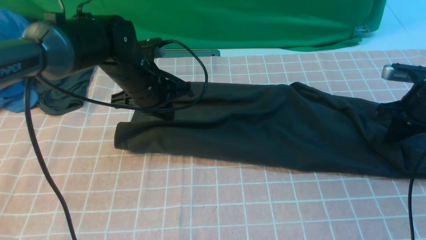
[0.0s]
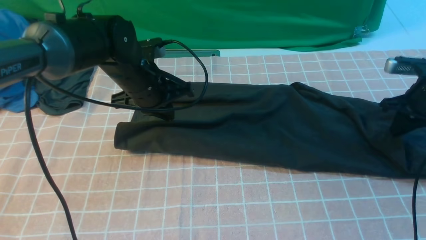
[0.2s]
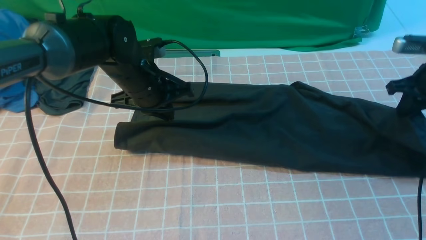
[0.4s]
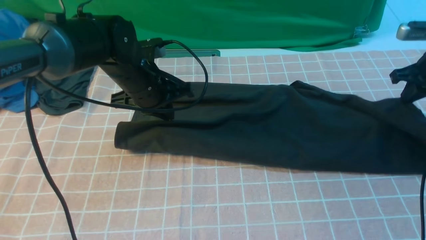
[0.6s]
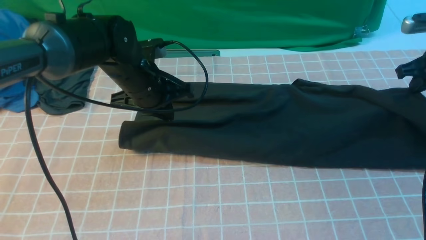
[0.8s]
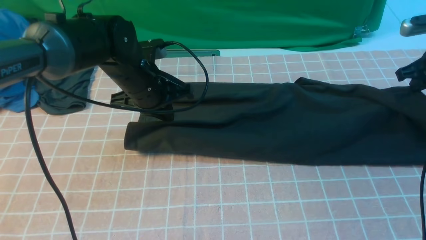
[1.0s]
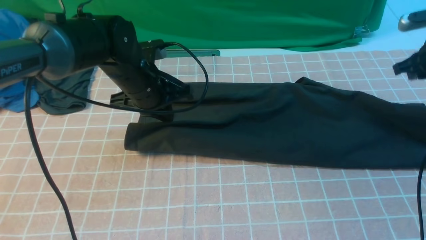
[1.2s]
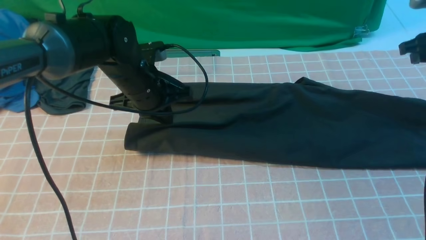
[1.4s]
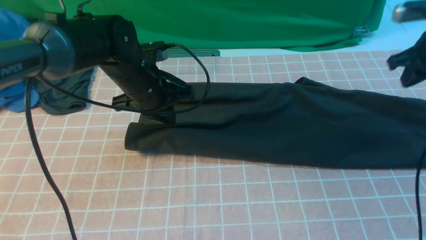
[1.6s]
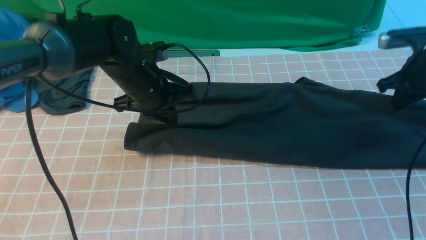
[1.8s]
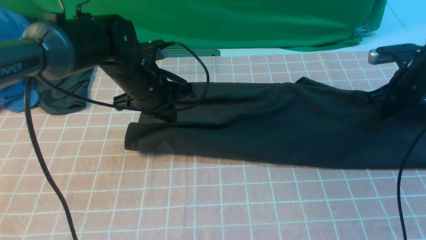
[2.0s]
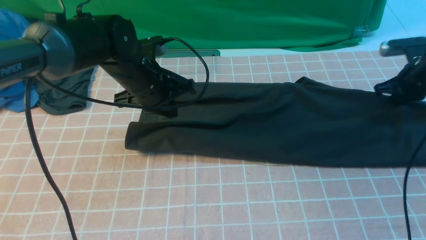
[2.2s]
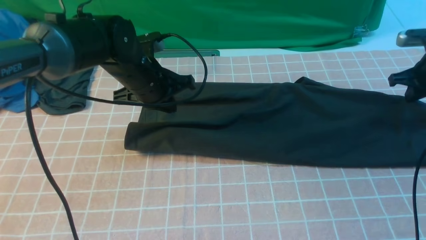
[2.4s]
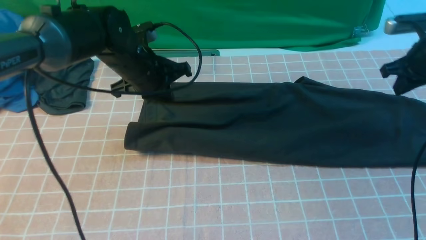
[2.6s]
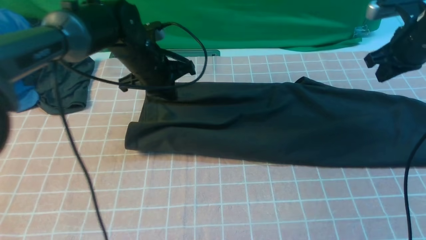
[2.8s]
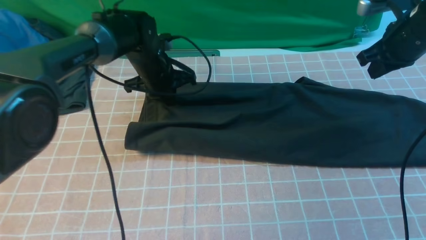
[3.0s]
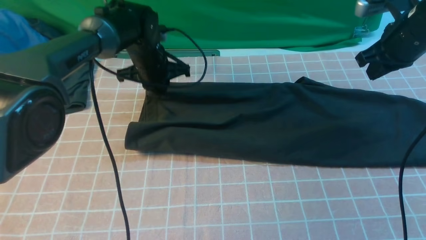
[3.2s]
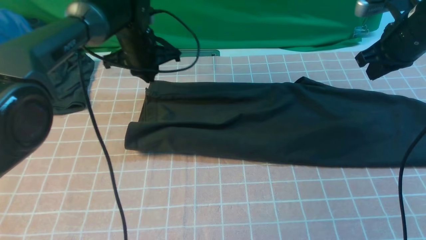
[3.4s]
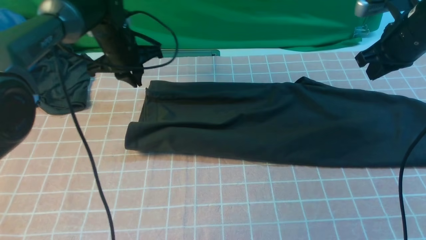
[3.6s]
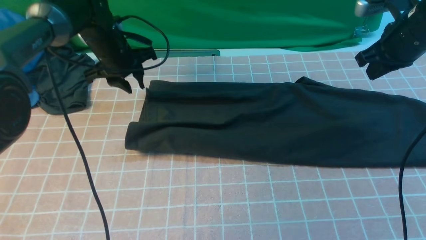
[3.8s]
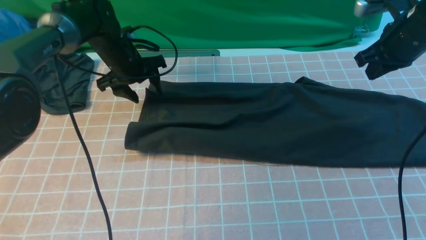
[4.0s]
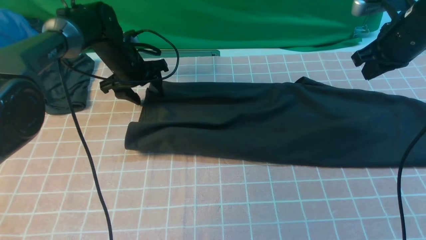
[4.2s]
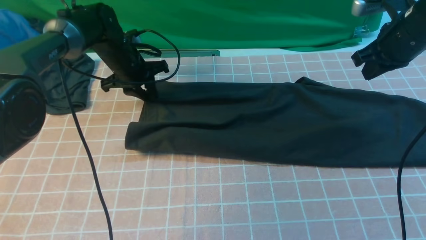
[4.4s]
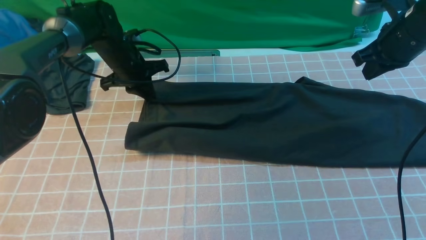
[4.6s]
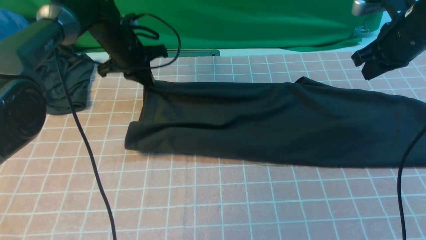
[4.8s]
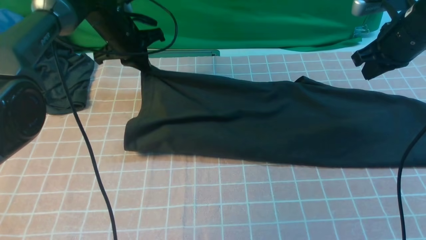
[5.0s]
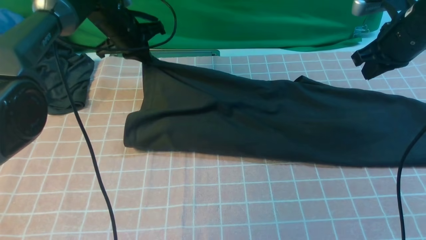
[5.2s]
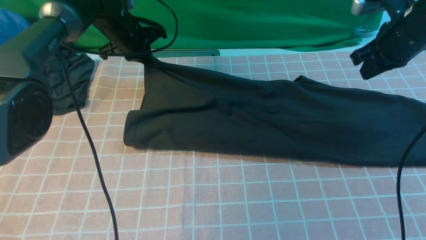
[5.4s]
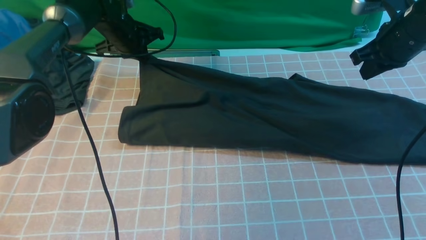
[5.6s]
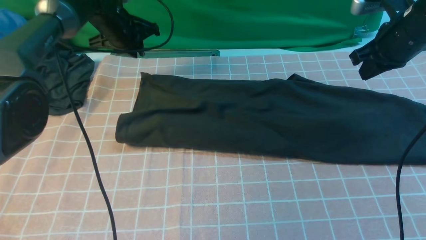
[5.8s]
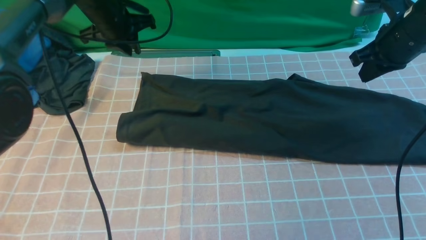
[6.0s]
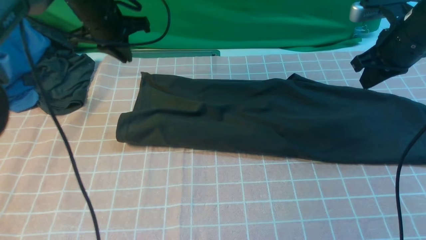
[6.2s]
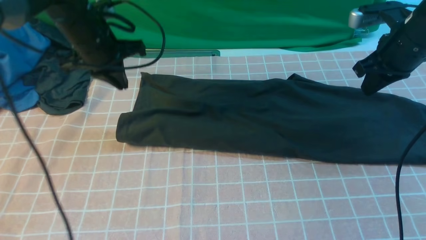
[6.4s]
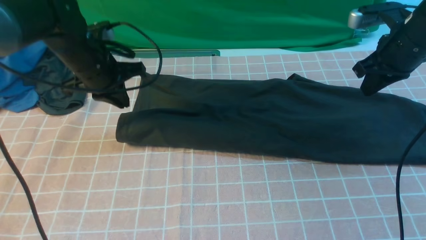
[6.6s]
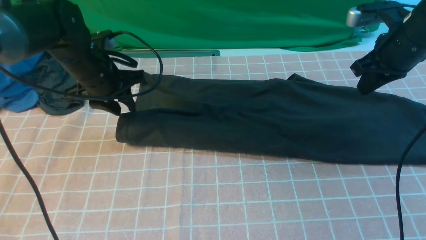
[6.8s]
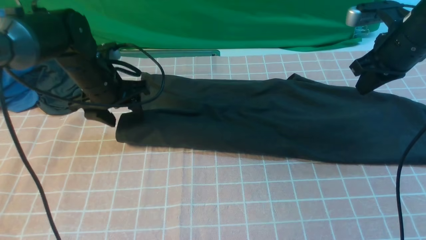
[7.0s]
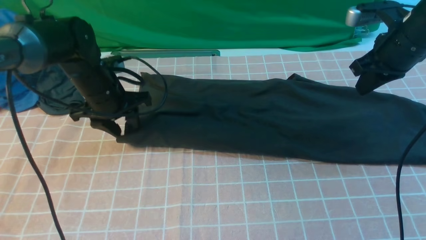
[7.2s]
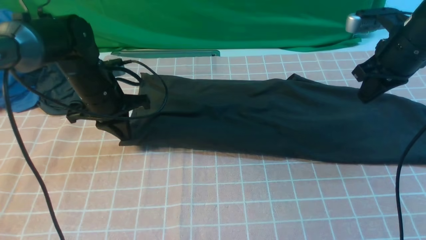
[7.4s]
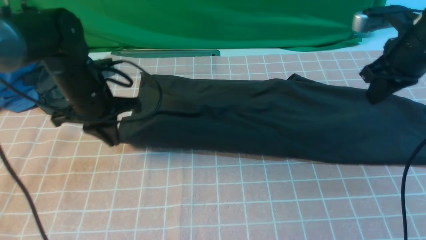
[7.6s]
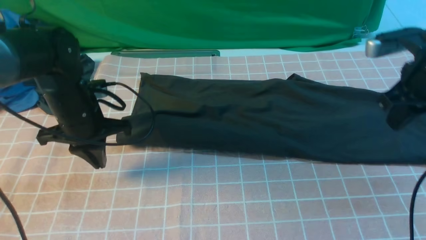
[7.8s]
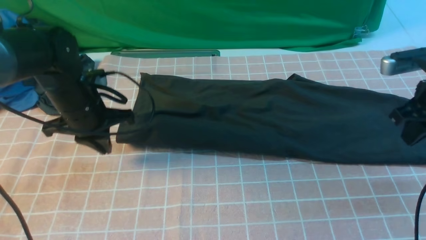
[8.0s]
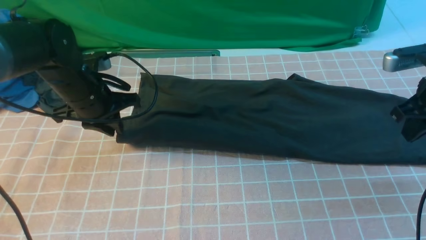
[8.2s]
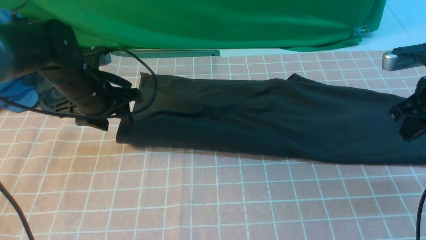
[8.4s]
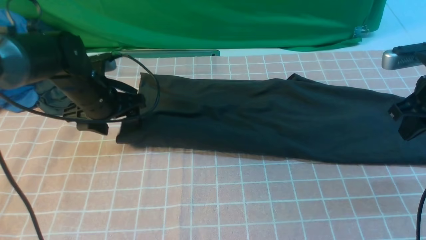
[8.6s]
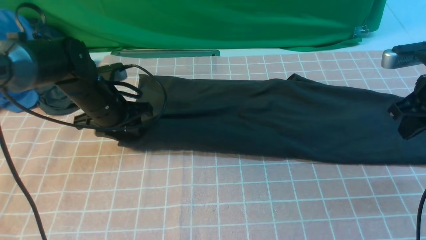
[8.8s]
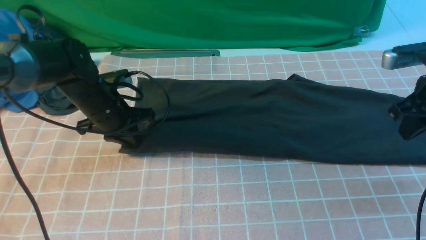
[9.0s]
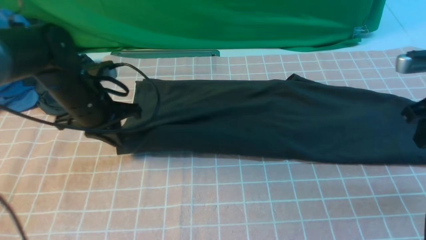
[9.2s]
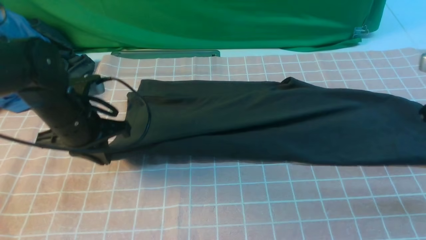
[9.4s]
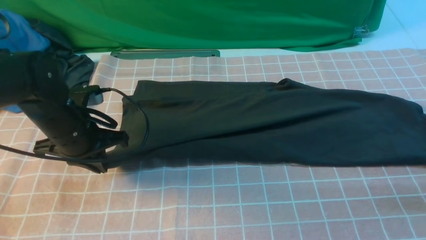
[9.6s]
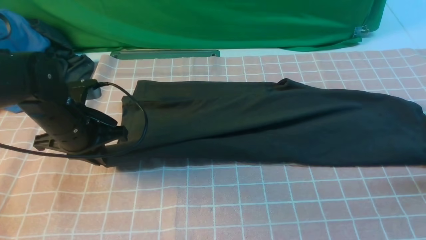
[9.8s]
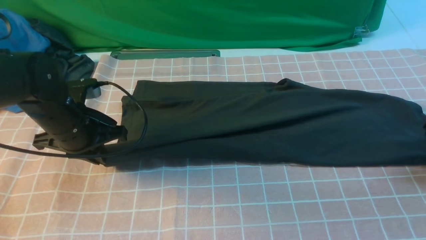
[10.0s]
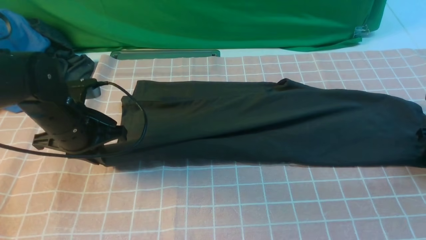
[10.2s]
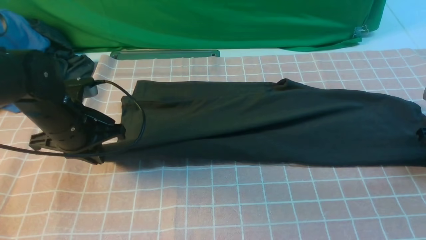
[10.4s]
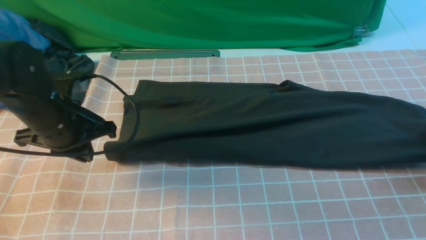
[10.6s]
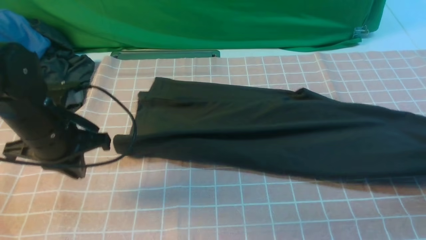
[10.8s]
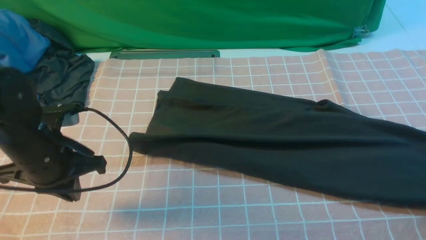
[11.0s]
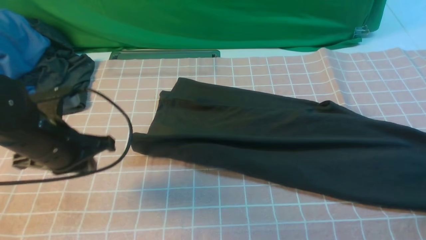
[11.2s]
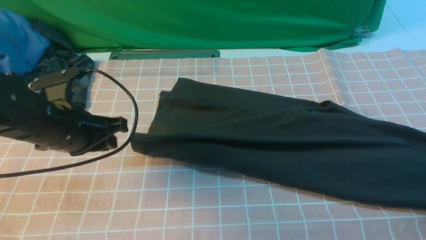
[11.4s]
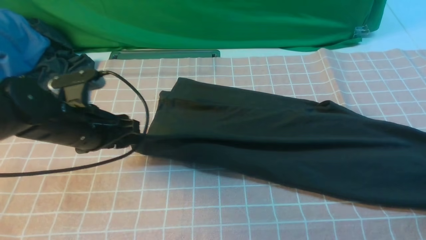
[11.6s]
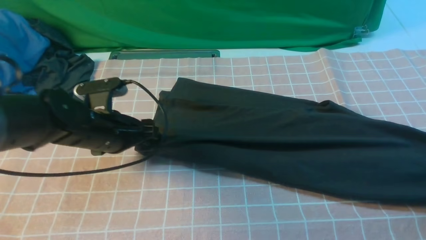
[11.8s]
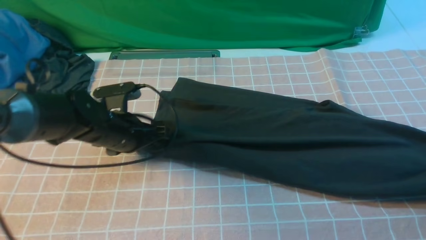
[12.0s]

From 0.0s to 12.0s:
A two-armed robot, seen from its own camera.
Step, from 0.0s to 5.6s: use both arms to drag the lower edge of the fabric forward and fold it over the upper edge.
From 0.0s to 1.6s: The right gripper travels upward by roughly 5 cm.
From 1.6s to 3.0s: The right gripper goes some 5 cm to the left, while the left gripper travels forward by roughly 10 cm.
From 3.0s to 4.4s: The left gripper is displaced to the left by roughly 5 cm, and opens its fingers.
From 4.4s to 6.0s: The left gripper goes about 10 cm upward.
From 6.0s to 7.6s: The left gripper is displaced backward and downward by some 15 cm, and opens and closes again.
From 7.6s to 9.0s: The left gripper opens, then closes once more. The right gripper moves approximately 5 cm.
From 9.0s to 10.4s: The right gripper goes roughly 15 cm to the right and downward, and opens, then closes again. Meanwhile the left gripper goes about 5 cm backward.
From 10.4s to 12.0s: The left gripper travels to the right and downward by some 10 cm, and opens up, while the right gripper heads backward, covering roughly 5 cm.

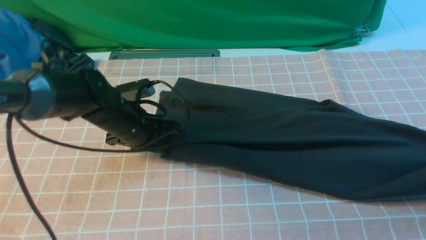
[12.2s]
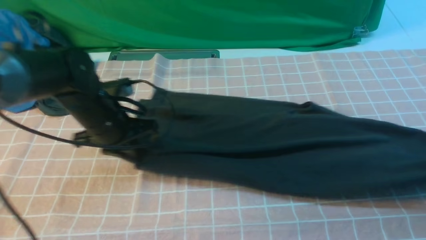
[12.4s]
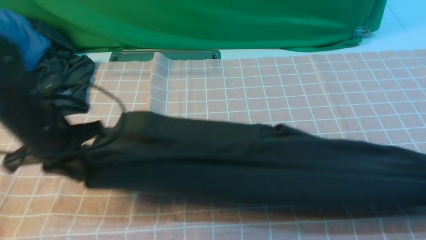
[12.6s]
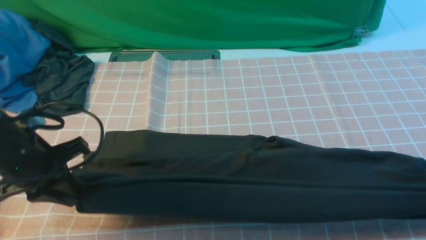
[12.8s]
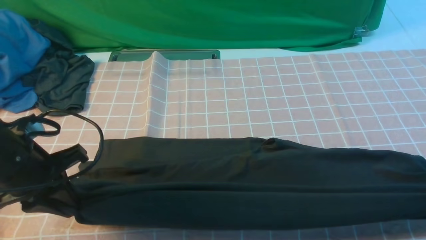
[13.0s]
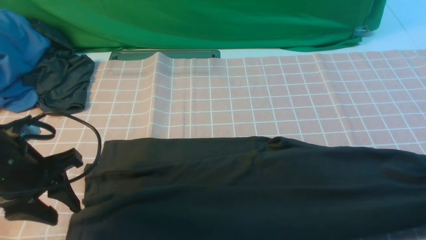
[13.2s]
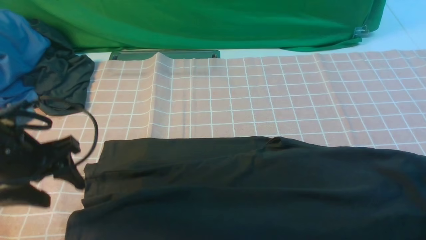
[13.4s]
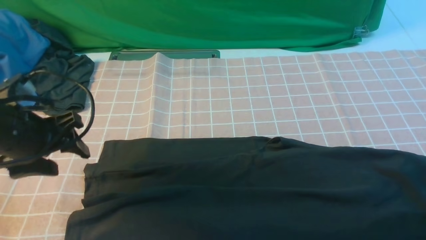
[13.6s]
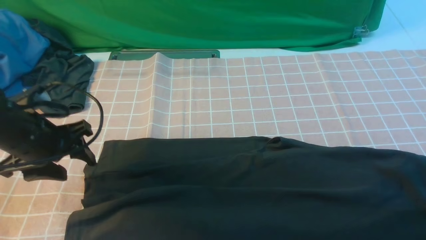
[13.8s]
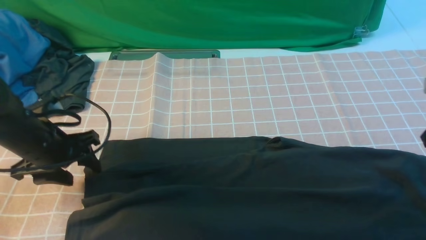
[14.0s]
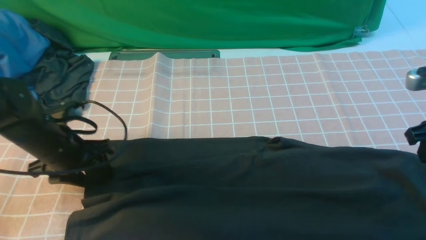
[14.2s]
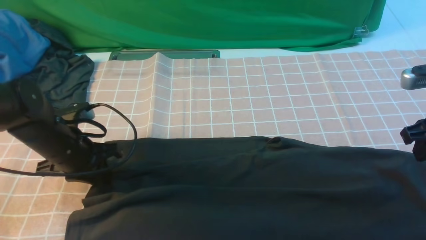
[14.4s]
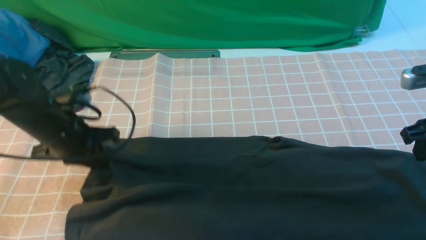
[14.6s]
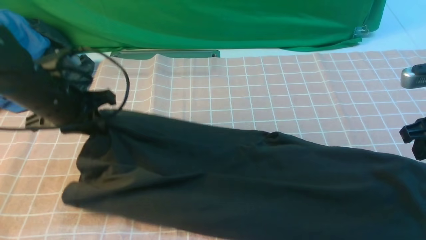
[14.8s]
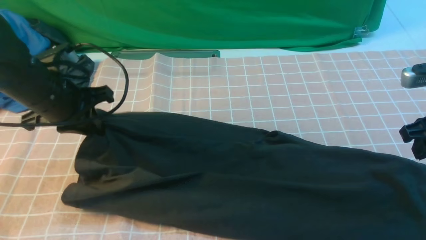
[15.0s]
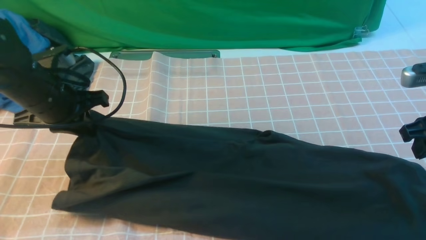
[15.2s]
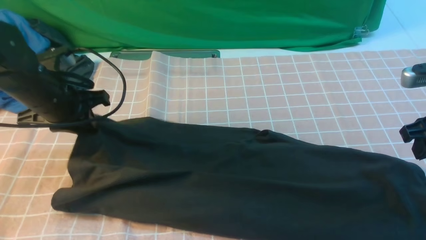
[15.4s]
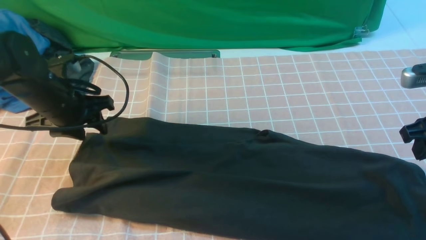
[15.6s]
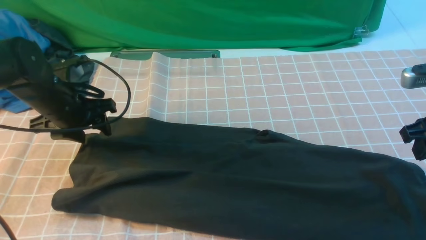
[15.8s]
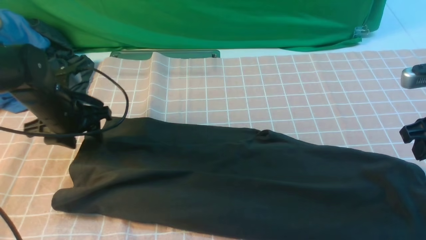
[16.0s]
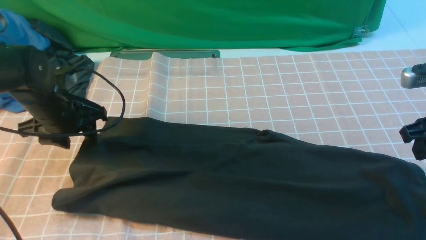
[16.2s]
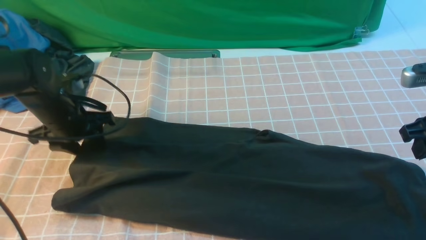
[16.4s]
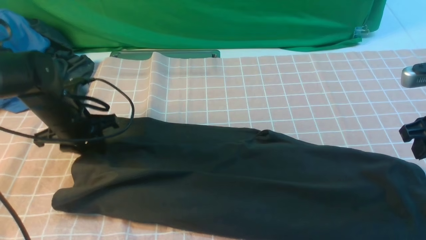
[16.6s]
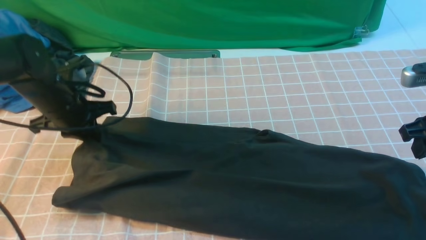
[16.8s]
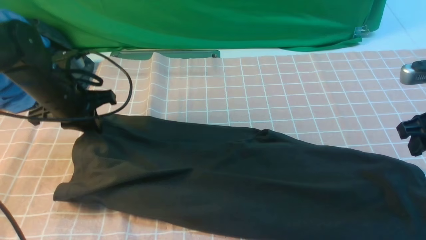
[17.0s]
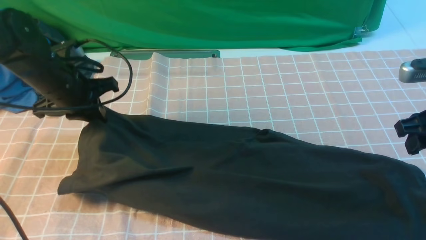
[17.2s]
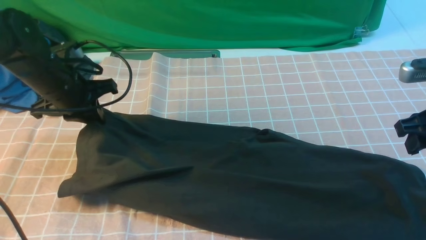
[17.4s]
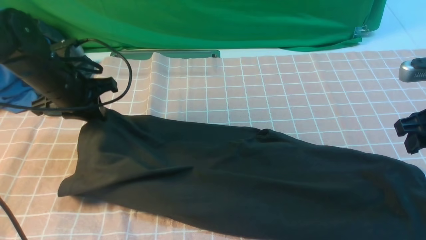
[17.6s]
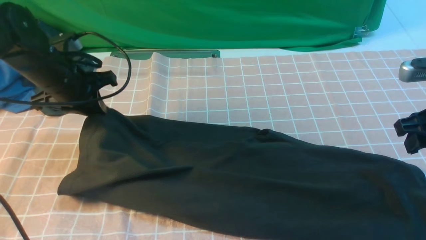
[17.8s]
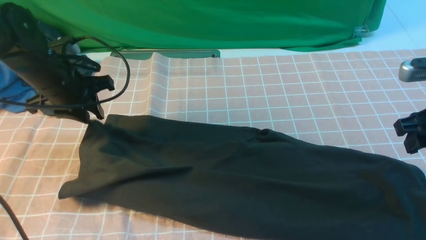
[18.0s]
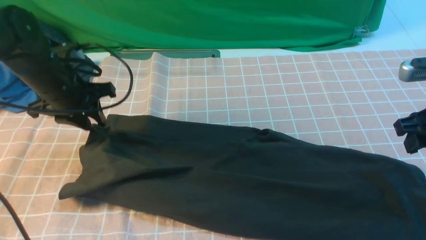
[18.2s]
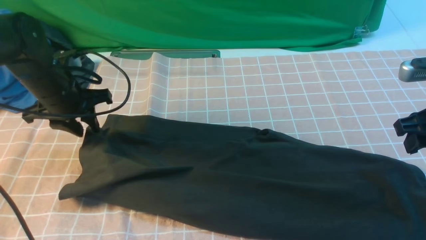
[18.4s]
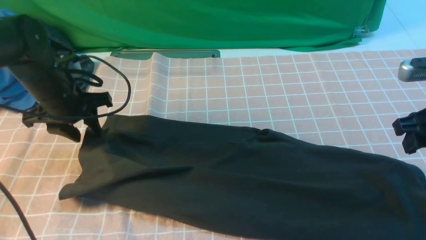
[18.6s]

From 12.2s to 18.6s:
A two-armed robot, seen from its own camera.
From 12.2s to 13.8s: The right gripper goes about 5 cm to the left, and opens; the left gripper is displaced to the left and backward by about 10 cm, and opens its fingers.
From 13.8s to 15.4s: The left gripper is displaced forward by about 5 cm, reaches approximately 5 cm downward, then returns, and closes its fingers. Meanwhile the right gripper is displaced to the left by approximately 5 cm.
From 15.4s to 17.0s: The left gripper closes.
From 17.0s to 18.6s: The left gripper opens its fingers.
